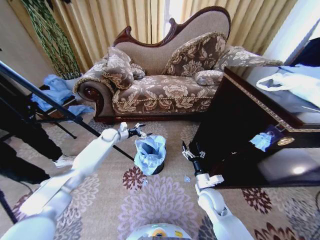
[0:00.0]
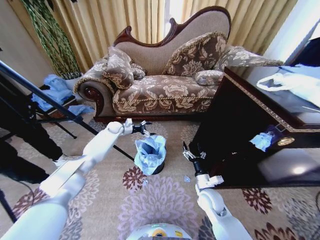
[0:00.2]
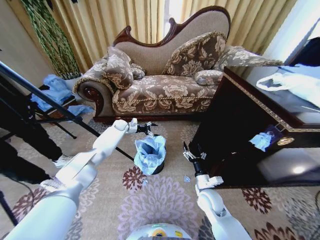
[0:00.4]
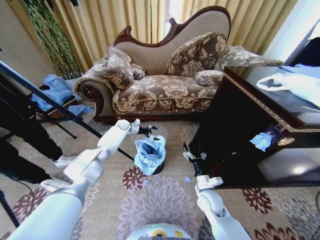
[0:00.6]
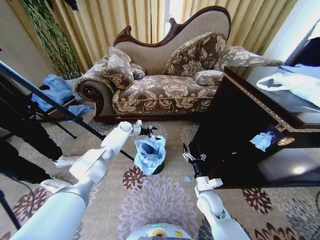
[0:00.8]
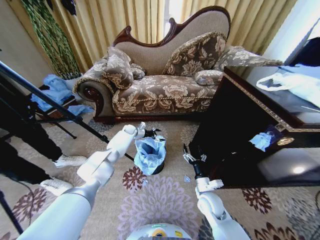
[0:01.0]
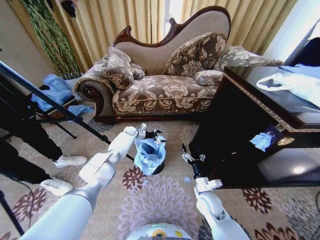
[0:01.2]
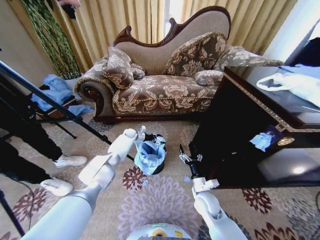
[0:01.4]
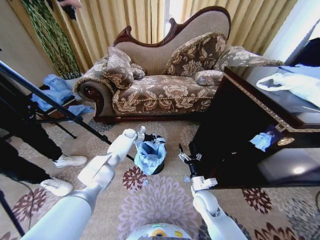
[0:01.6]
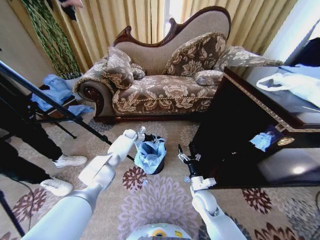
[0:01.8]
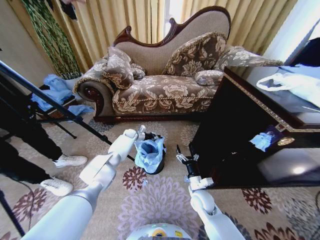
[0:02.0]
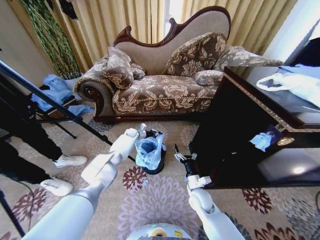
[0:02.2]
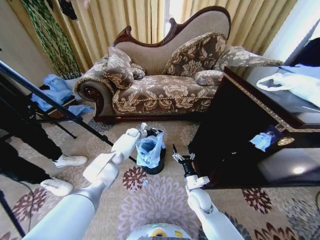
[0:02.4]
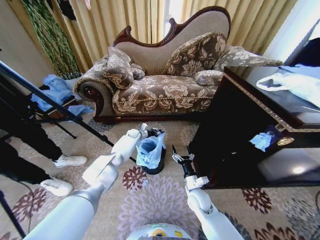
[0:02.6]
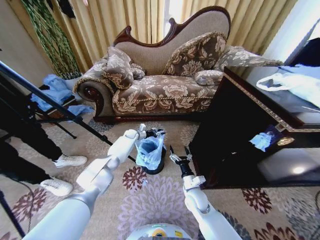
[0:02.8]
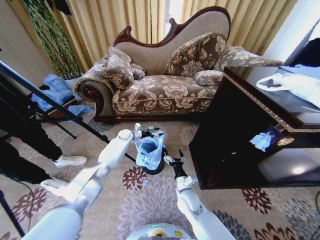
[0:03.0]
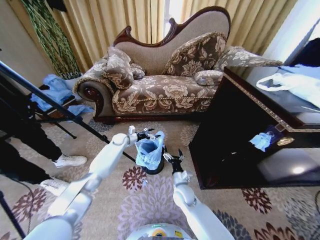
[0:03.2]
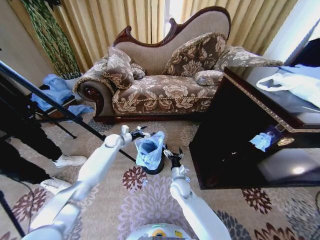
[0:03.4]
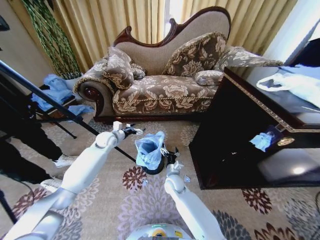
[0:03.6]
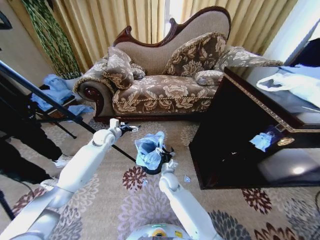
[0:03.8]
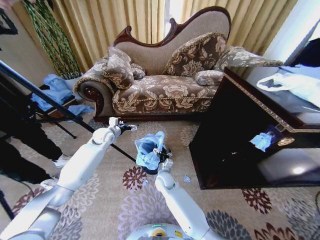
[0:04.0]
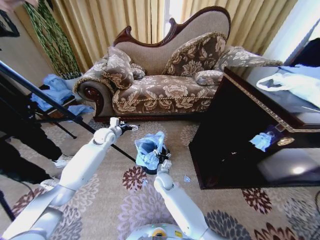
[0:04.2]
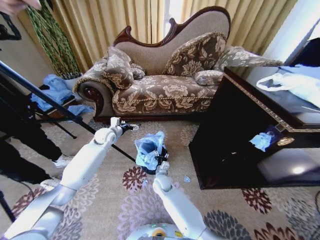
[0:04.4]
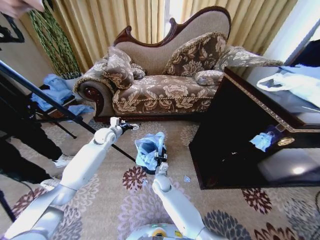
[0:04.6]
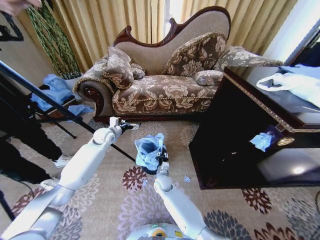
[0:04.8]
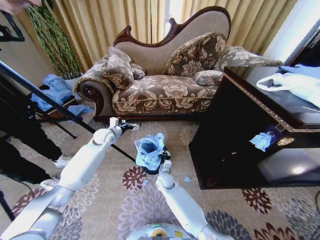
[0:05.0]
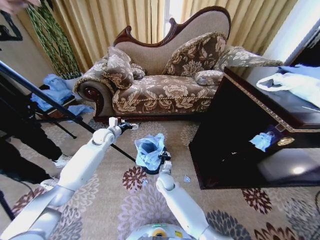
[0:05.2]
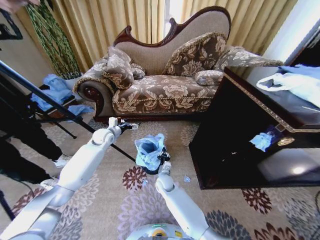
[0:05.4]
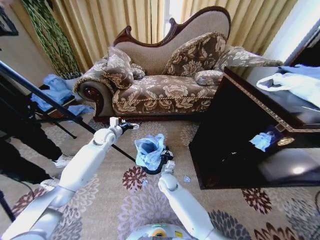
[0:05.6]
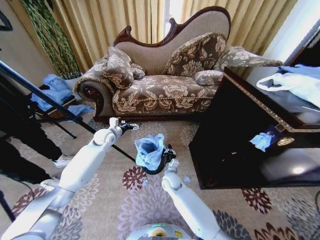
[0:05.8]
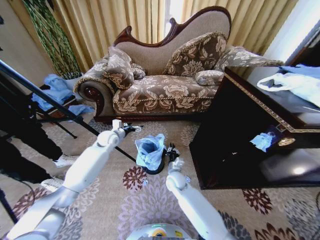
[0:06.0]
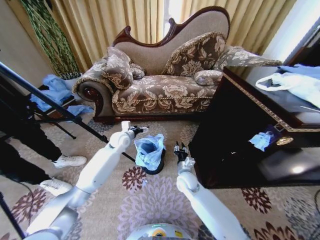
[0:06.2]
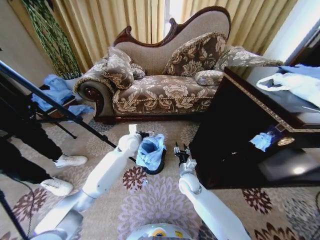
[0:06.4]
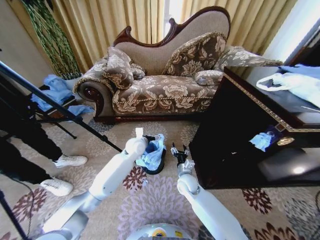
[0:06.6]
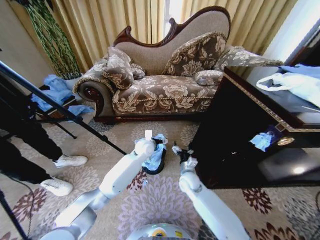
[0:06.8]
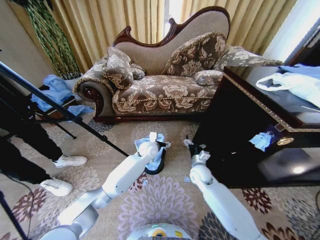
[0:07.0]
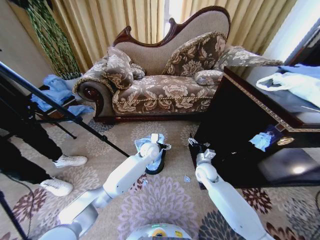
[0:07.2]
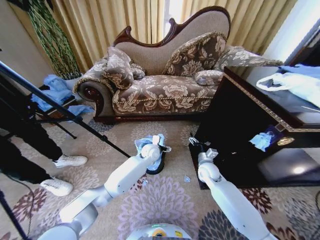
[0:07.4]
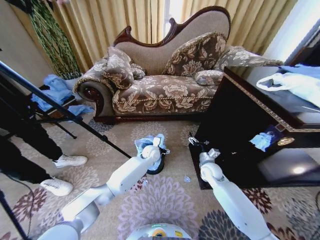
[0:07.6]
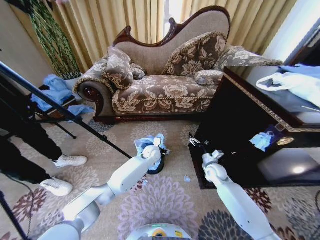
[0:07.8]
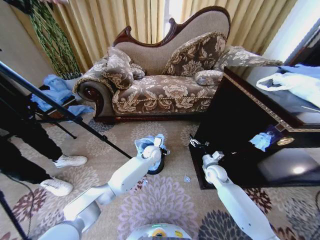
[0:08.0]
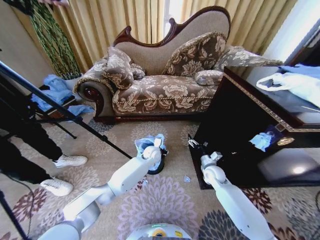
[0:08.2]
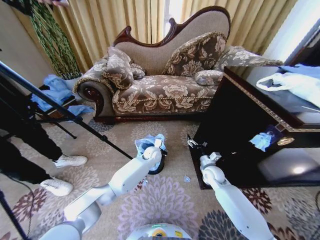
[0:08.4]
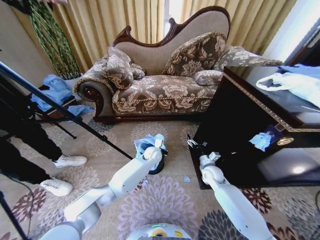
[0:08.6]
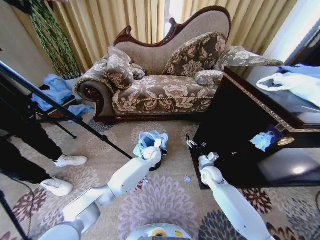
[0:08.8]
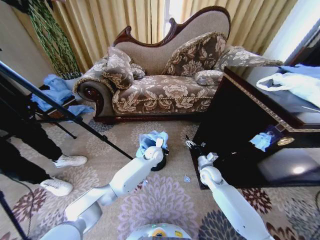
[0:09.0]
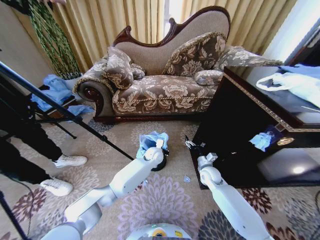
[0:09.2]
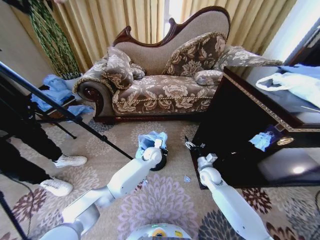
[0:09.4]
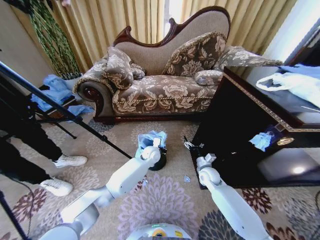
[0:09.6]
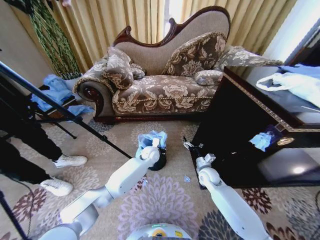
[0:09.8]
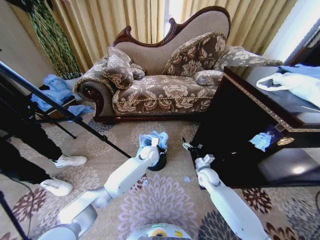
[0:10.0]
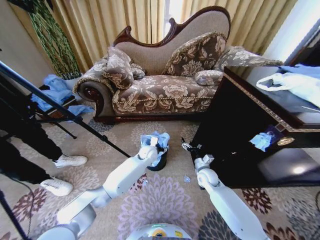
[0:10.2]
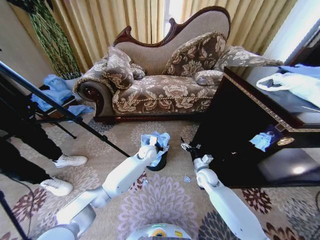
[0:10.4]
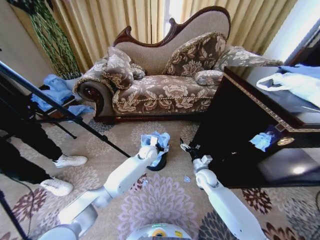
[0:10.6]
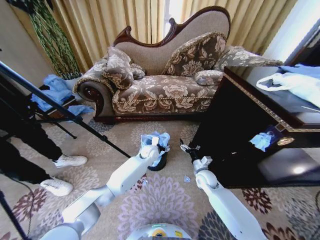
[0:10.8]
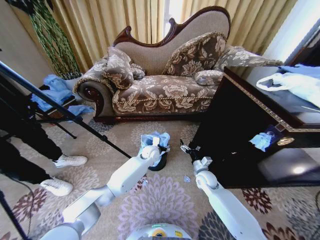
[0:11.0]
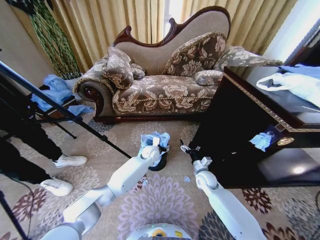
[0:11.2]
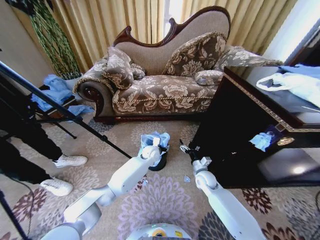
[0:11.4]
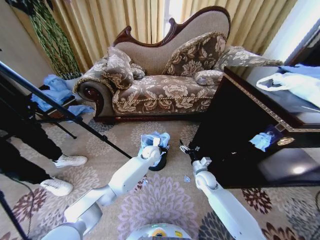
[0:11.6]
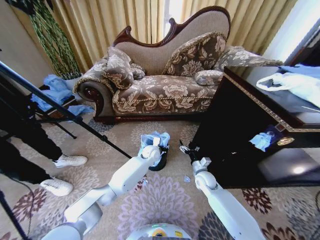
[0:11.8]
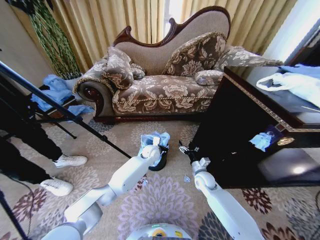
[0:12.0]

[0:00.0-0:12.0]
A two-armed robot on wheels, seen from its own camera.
Task of the whole recording: Place a garbage bag over the trash bin.
0:00.0 to 0:01.6: The left gripper travels forward, to the right and downward by approximately 15 cm, and closes up.
0:01.6 to 0:03.0: The right gripper travels to the left by approximately 5 cm; the left gripper closes and opens again.
0:03.0 to 0:04.4: The left gripper shifts some 15 cm backward, upward and to the left, and opens; the right gripper heads to the left and forward, covering approximately 15 cm.
0:04.4 to 0:06.0: The right gripper travels to the right by some 5 cm, and closes its fingers.
0:06.0 to 0:07.6: Both grippers travel together to the right, some 20 cm. The right gripper opens up.
0:07.6 to 0:09.0: The left gripper closes.
0:09.0 to 0:10.4: The left gripper opens its fingers.
0:10.4 to 0:12.0: The left gripper closes.

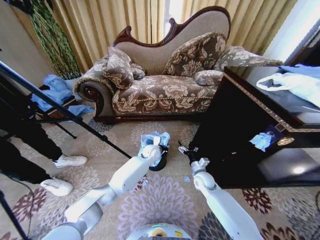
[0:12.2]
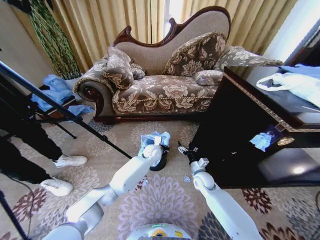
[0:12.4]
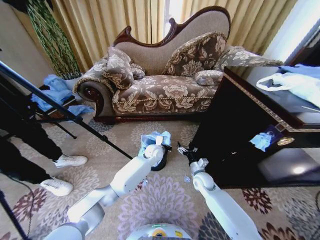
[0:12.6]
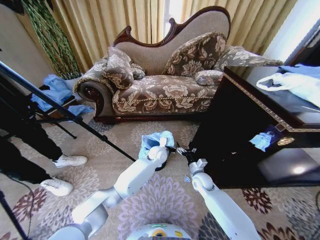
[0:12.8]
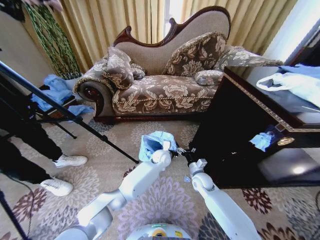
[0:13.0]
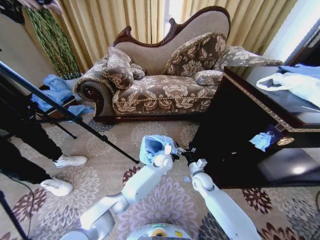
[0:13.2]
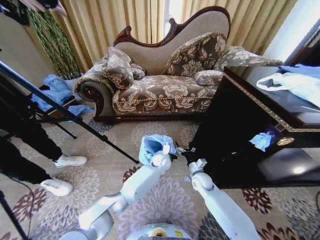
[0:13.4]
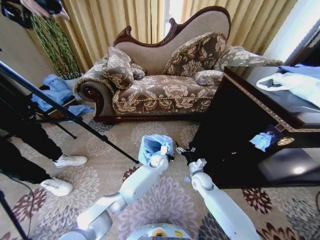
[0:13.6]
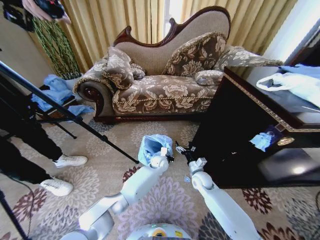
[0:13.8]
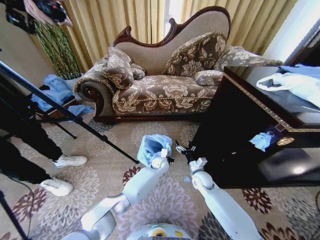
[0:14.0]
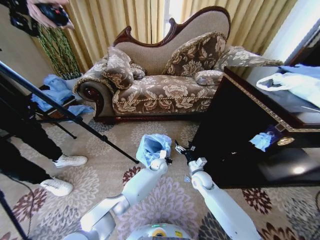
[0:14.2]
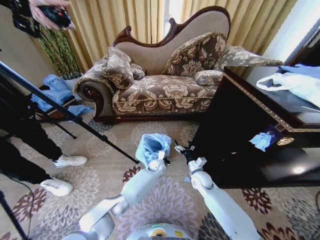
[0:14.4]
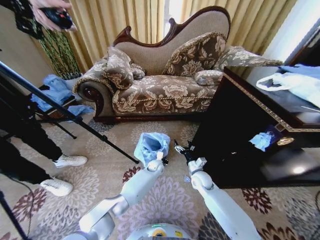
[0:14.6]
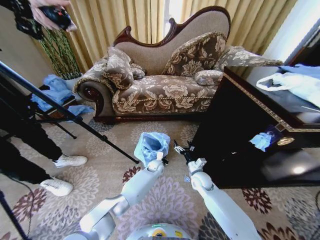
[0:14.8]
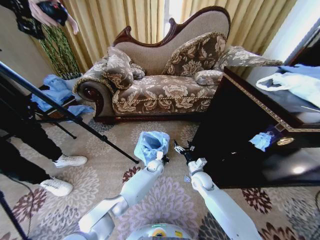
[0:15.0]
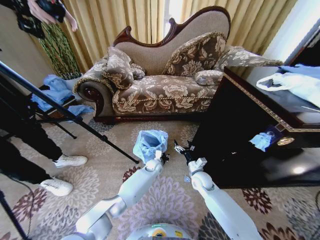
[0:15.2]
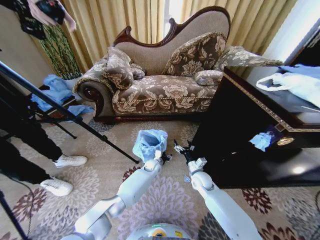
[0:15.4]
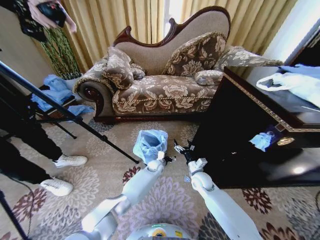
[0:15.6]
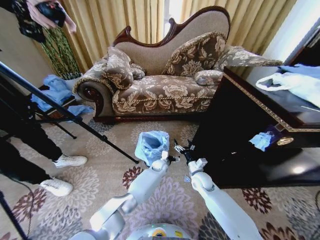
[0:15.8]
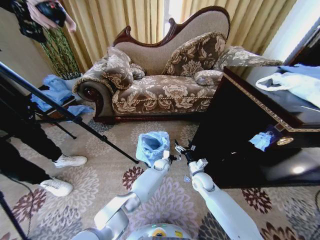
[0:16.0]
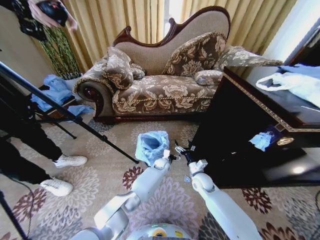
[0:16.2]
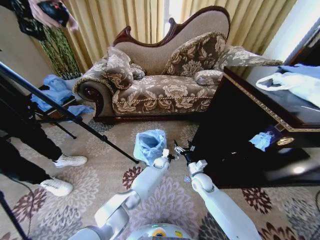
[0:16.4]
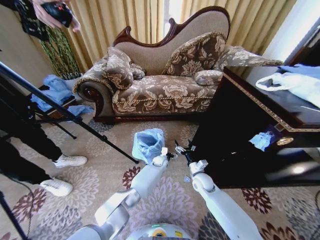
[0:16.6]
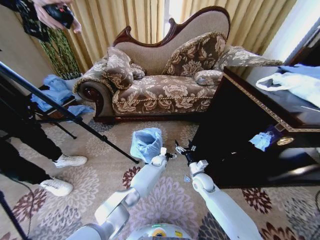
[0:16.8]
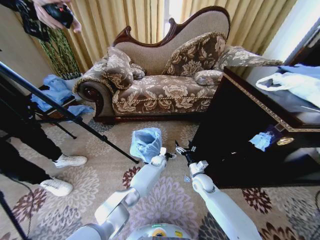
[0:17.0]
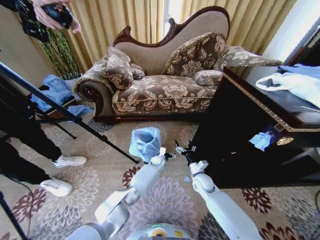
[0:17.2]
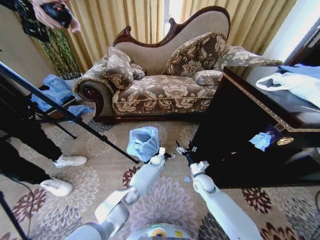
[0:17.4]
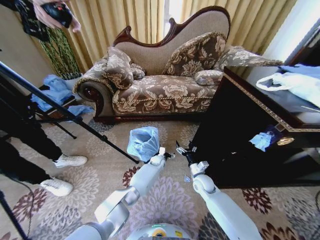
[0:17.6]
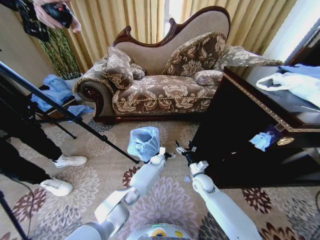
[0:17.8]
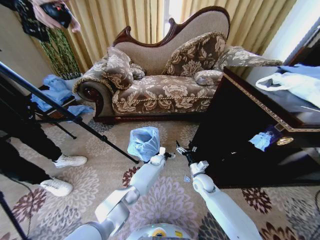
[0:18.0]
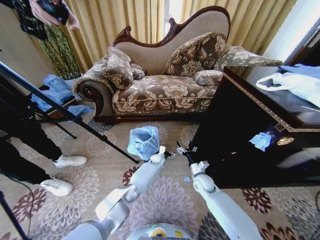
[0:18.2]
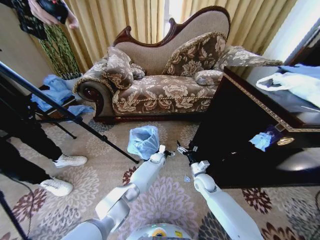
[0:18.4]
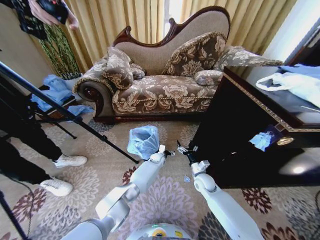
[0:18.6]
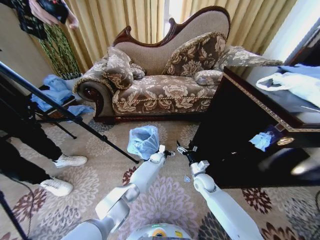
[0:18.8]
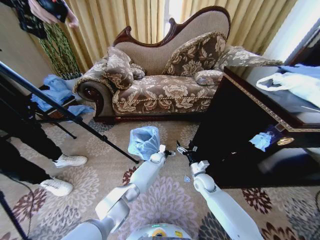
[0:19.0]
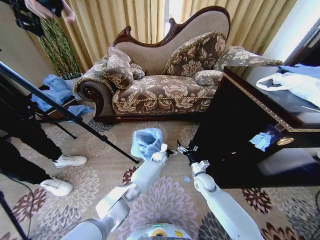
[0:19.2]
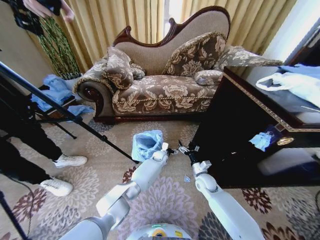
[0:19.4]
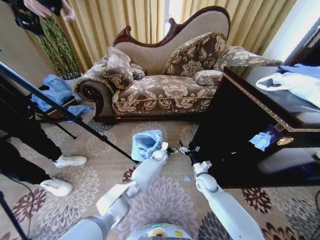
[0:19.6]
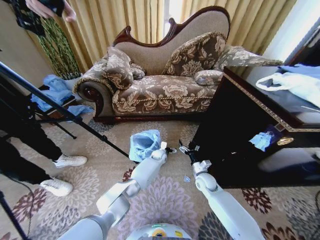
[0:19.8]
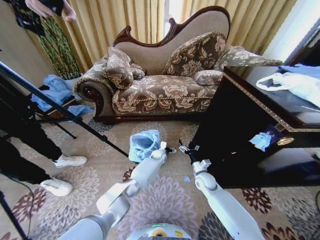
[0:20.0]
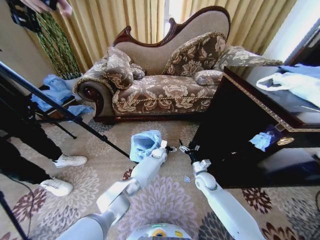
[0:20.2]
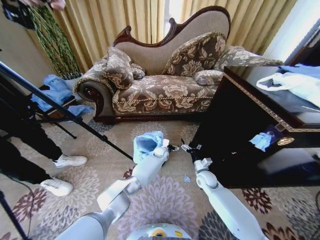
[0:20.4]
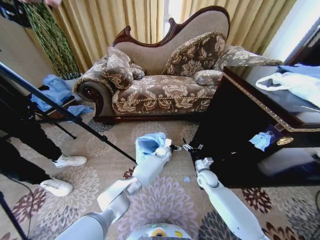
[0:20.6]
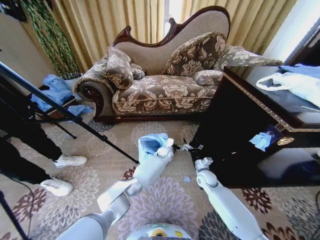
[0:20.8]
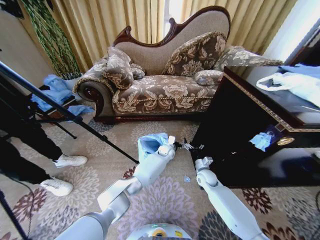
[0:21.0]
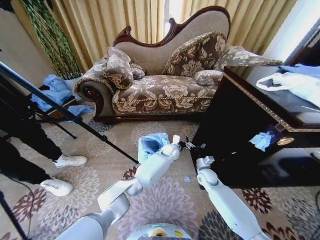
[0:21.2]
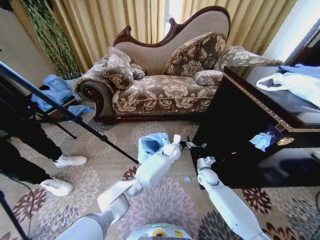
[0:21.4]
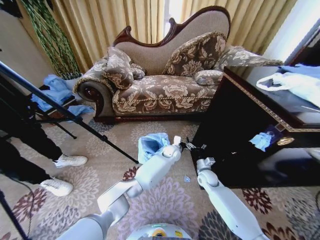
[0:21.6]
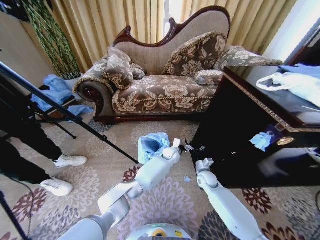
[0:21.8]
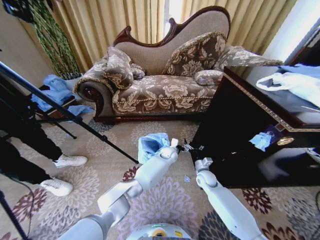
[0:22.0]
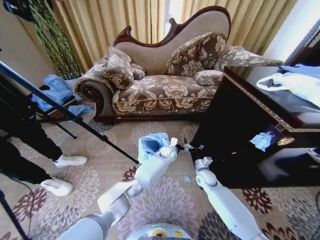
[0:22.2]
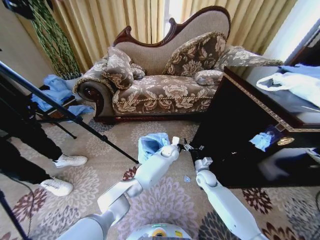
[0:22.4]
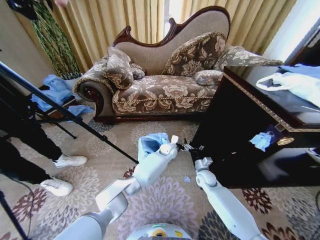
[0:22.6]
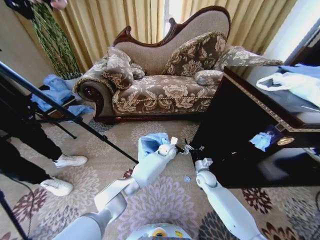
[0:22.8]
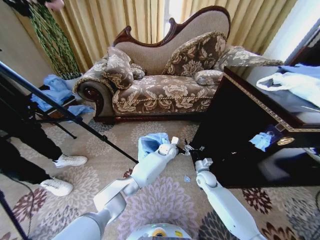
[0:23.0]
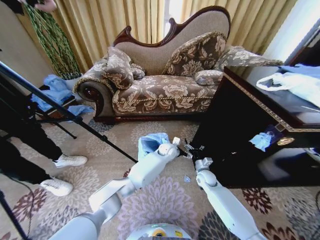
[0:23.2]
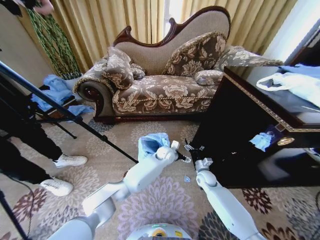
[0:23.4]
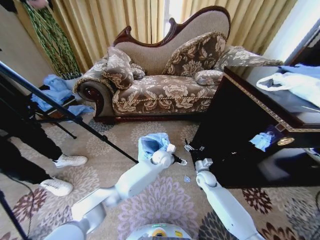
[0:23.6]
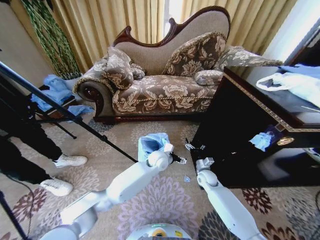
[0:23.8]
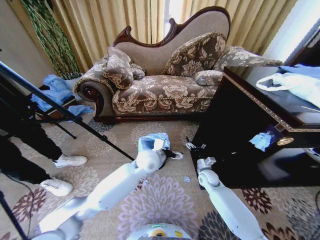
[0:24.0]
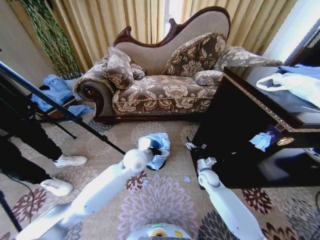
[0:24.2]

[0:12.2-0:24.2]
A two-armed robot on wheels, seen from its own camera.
Task of the whole recording: Place a garbage bag over the trash bin.
0:12.2 to 0:13.8: The left gripper moves downward, about 5 cm.
0:13.8 to 0:15.2: The left gripper ends up about 5 cm from where it was, and opens.
0:15.2 to 0:16.6: The left gripper changes place by some 5 cm, and opens.
0:16.6 to 0:19.8: The grippers stay close to where they were, moving slightly.
0:19.8 to 0:21.2: The left gripper heads upward and to the right, covering some 10 cm.
0:21.2 to 0:22.6: The grippers move only a little.
0:22.6 to 0:24.2: The left gripper shifts roughly 25 cm to the left, backward and upward.
